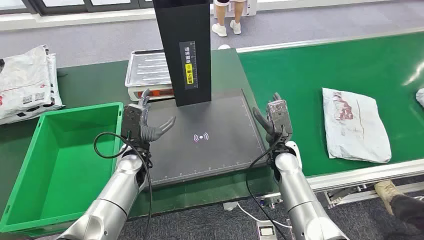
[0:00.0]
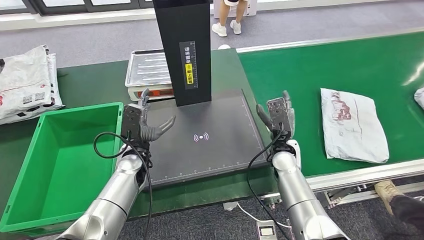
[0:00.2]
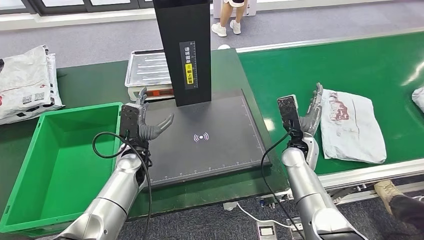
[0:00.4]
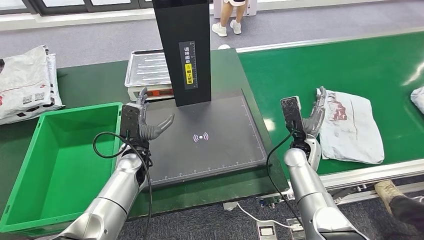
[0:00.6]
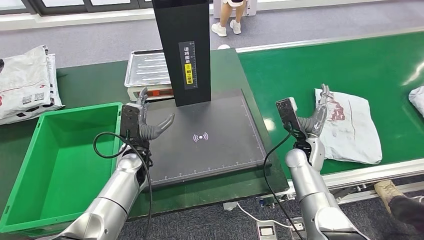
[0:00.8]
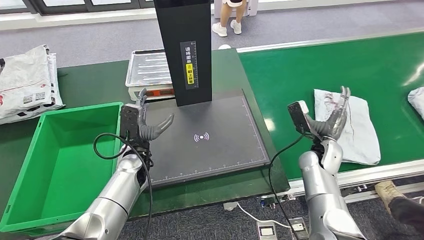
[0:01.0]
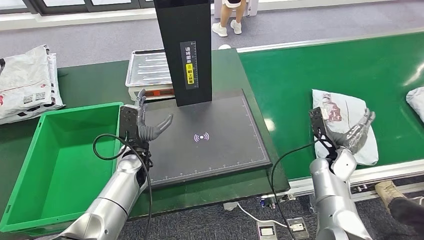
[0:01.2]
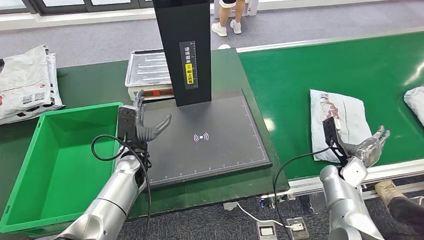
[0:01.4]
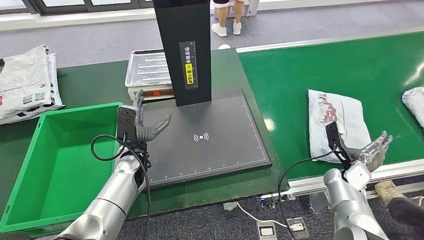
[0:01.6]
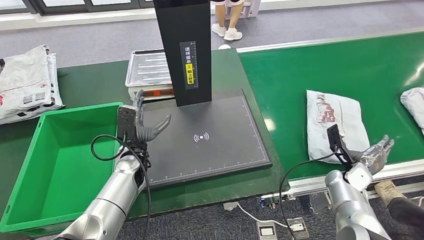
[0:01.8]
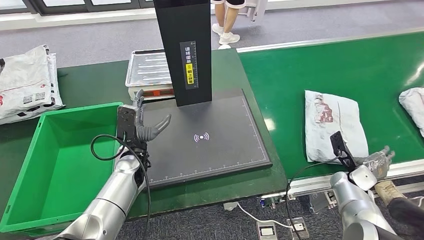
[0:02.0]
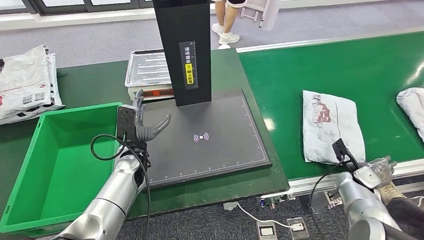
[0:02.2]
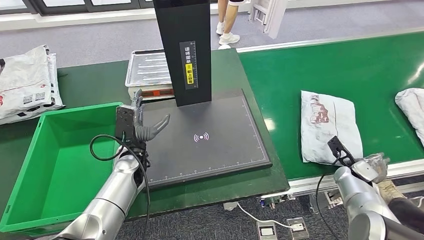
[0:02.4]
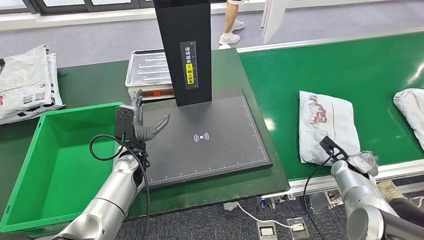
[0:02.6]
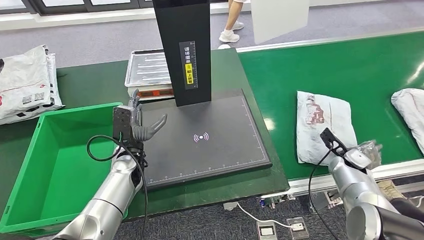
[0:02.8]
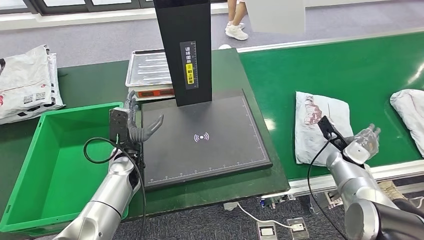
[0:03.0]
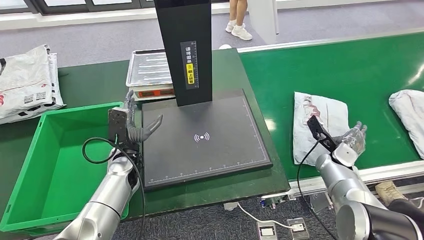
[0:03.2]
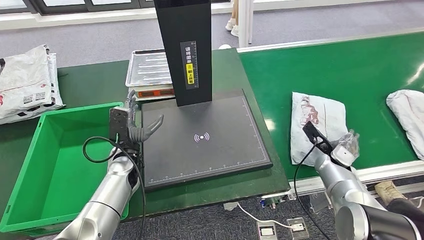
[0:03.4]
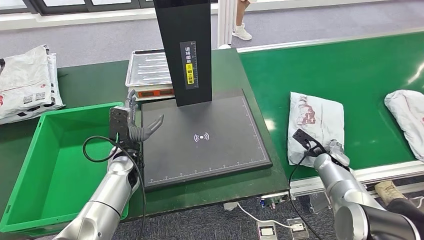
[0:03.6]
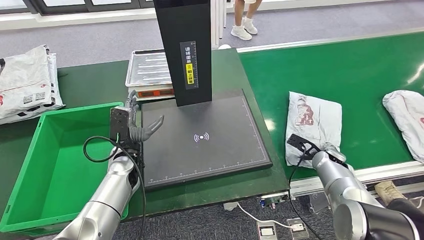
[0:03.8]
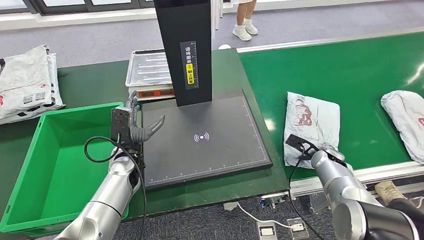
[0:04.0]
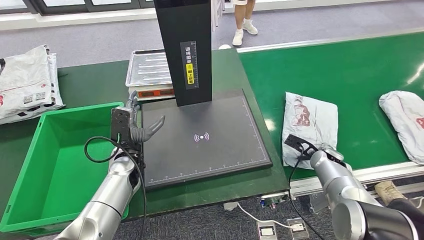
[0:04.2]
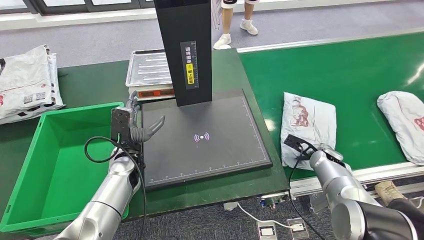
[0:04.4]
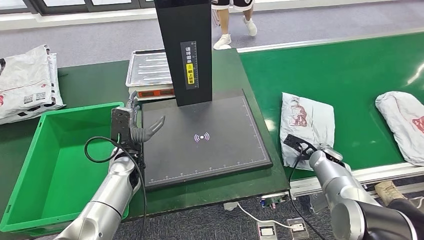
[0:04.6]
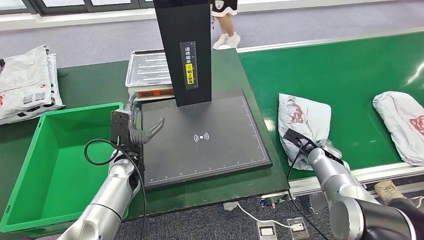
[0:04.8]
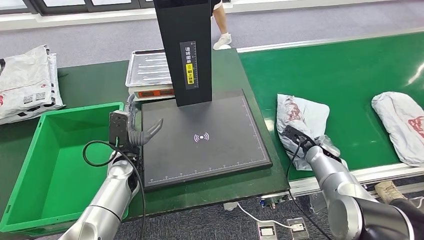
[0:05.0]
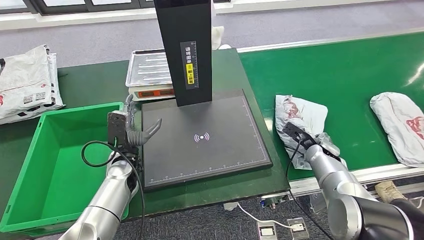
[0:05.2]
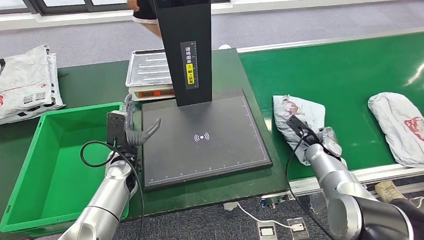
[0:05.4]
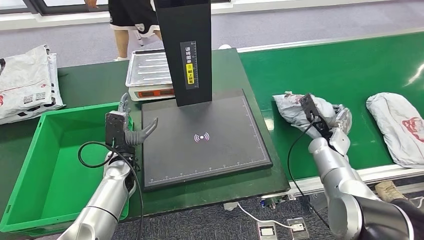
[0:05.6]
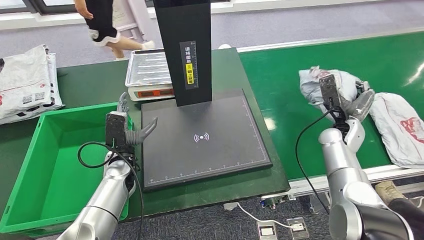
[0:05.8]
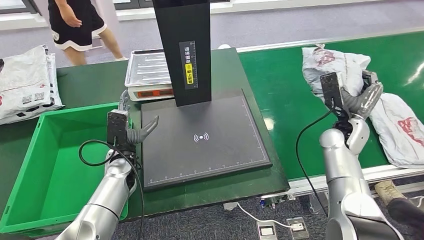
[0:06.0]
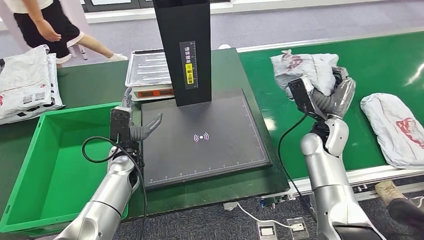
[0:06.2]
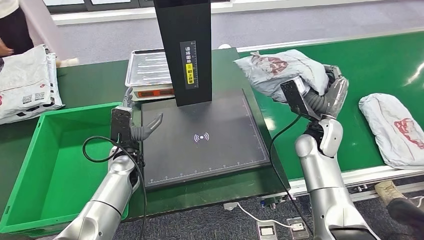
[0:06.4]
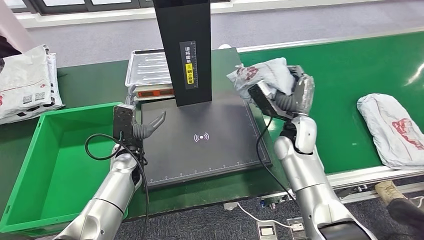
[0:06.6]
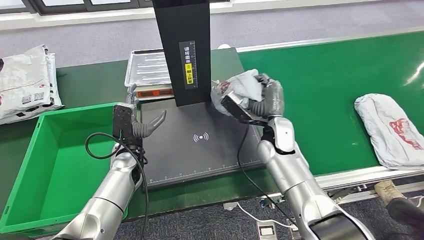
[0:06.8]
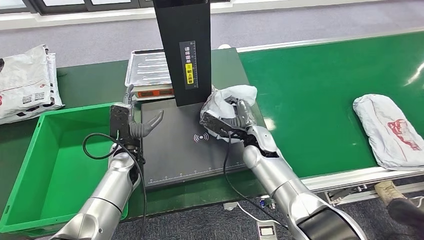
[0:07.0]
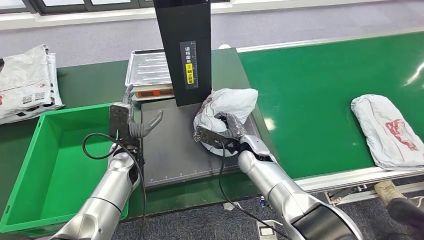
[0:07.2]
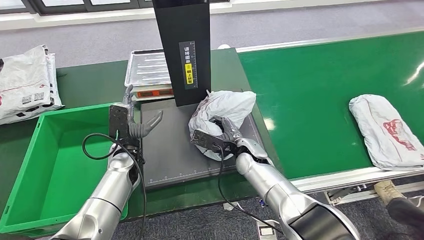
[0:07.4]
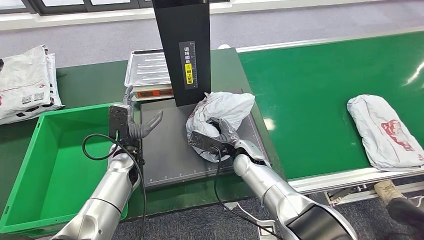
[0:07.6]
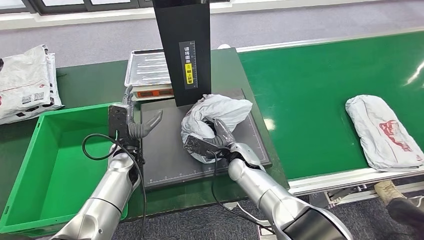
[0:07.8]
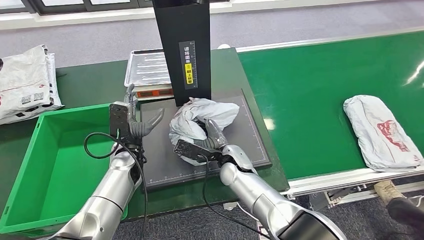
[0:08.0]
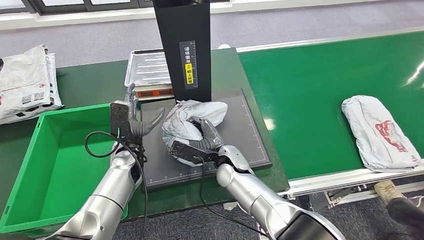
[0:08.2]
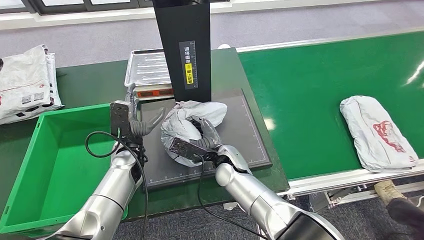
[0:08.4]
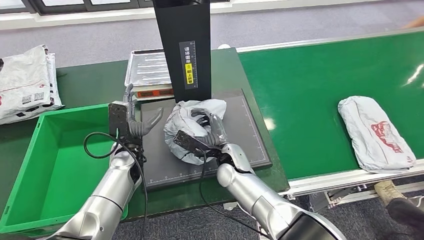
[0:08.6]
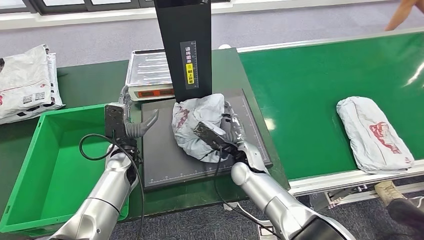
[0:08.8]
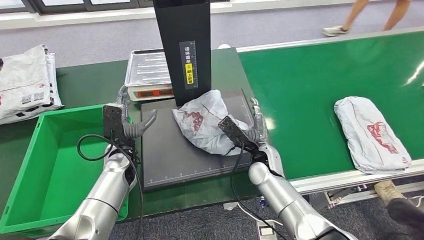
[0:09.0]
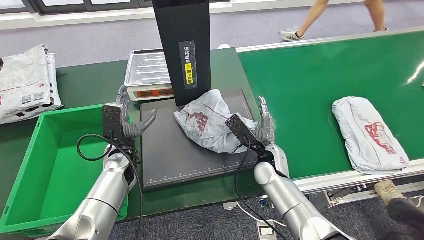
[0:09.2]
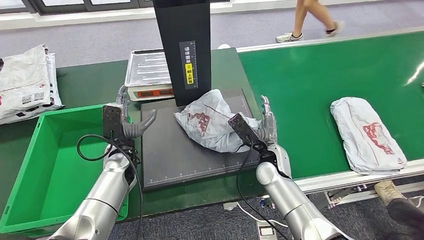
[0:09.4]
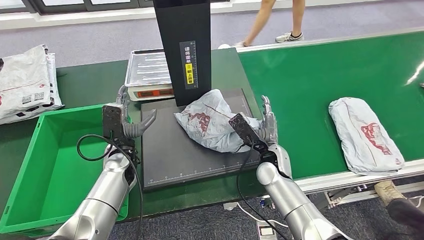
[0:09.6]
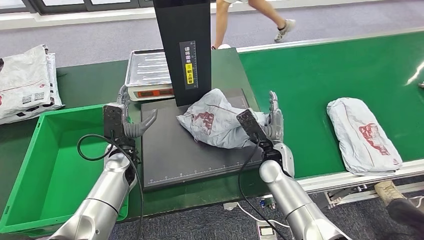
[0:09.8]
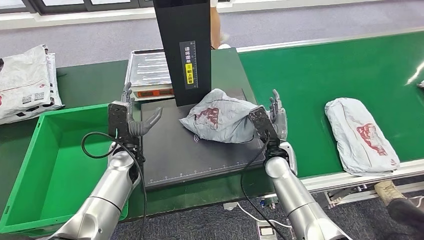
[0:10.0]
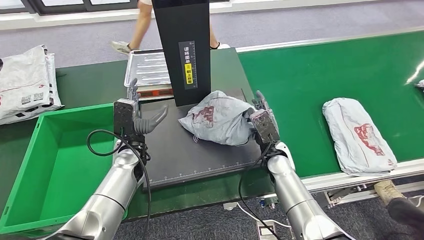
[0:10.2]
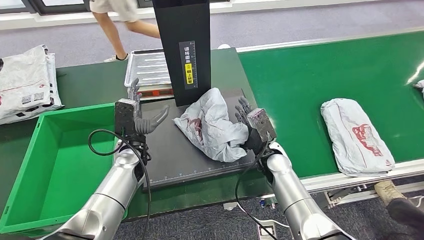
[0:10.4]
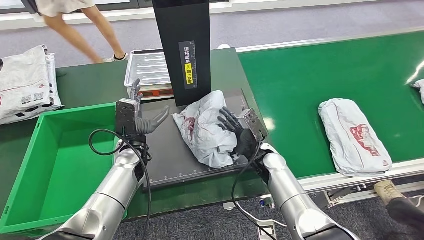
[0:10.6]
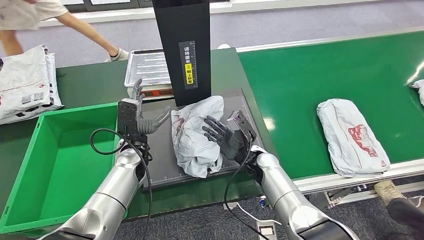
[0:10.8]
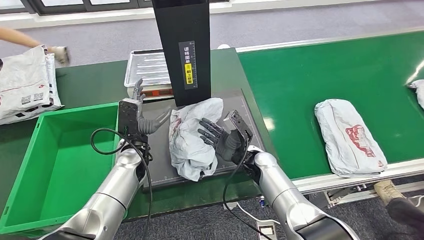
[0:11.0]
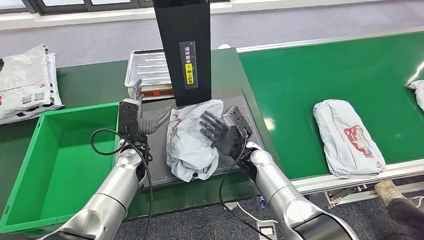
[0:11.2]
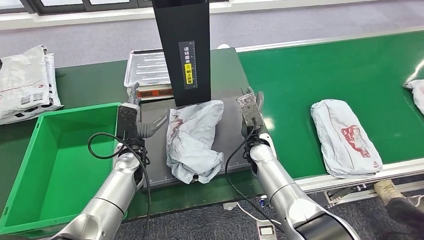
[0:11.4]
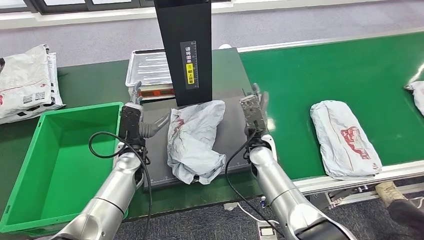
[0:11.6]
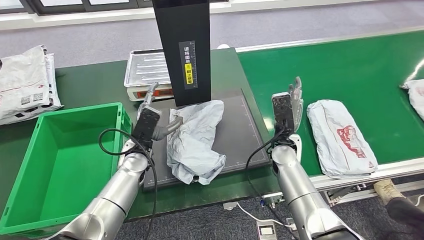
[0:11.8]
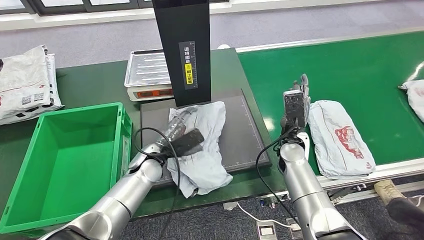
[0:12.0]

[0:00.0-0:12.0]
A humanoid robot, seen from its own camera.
Step, 0:00.0 to 0:05.6: Take the parcel off the conveyor belt.
Step, 0:06.0 to 0:08.4: Place the parcel onto the inbound machine.
0:03.0 to 0:04.4: The right hand moves about 5 cm.

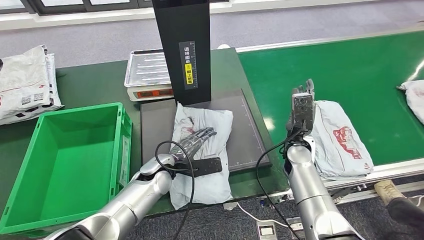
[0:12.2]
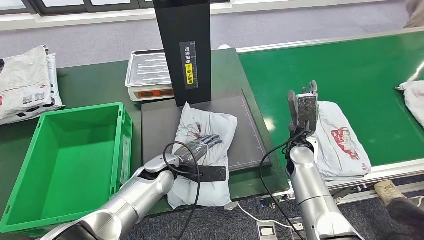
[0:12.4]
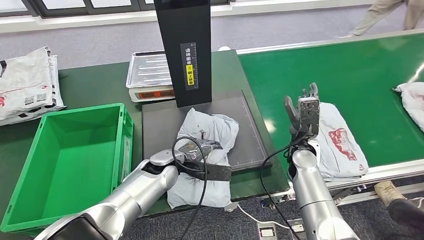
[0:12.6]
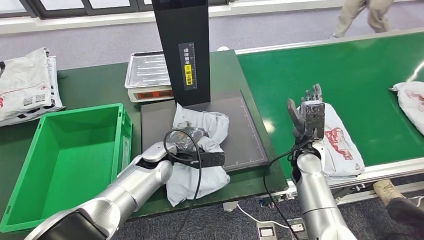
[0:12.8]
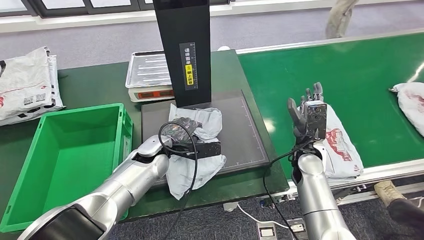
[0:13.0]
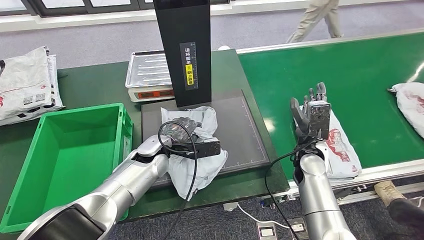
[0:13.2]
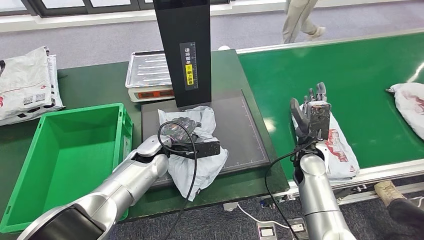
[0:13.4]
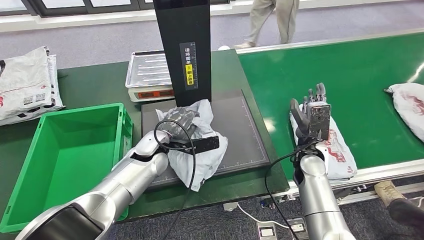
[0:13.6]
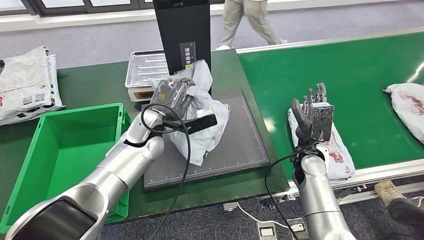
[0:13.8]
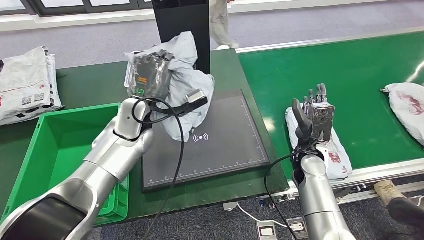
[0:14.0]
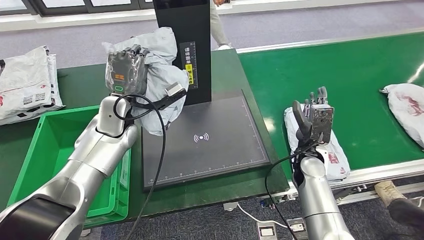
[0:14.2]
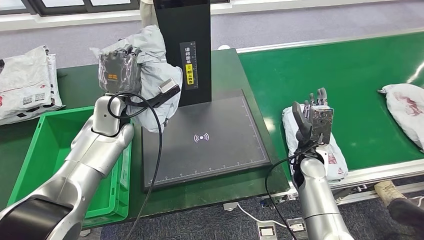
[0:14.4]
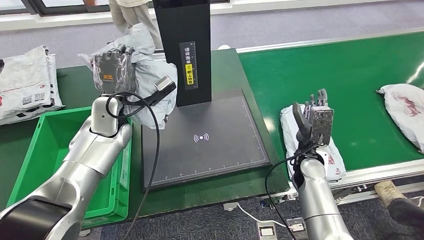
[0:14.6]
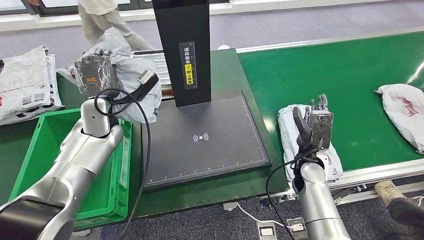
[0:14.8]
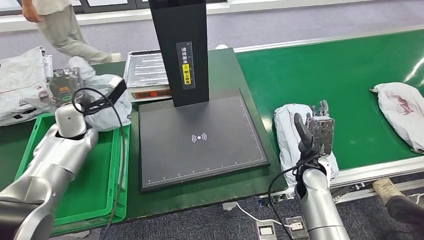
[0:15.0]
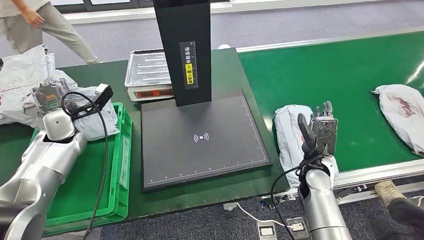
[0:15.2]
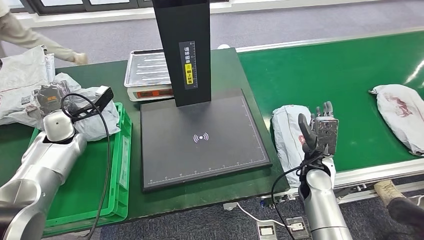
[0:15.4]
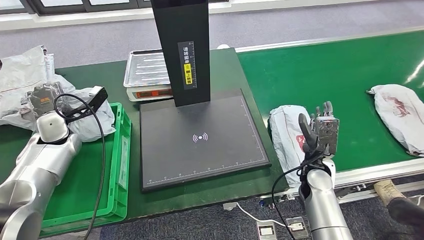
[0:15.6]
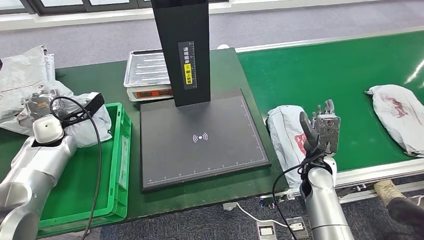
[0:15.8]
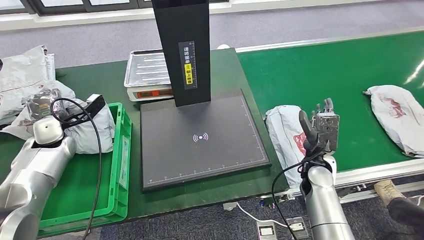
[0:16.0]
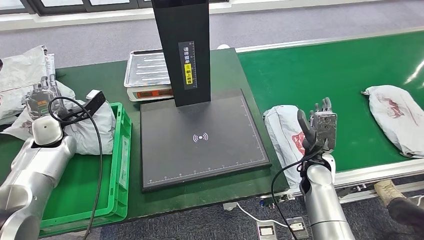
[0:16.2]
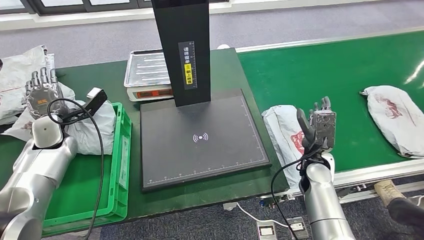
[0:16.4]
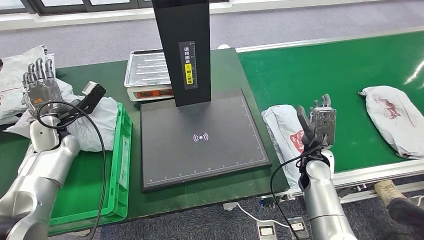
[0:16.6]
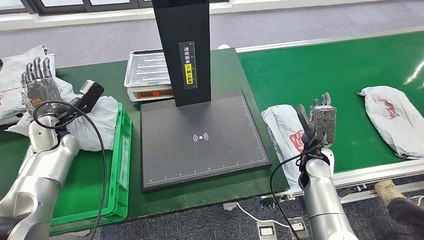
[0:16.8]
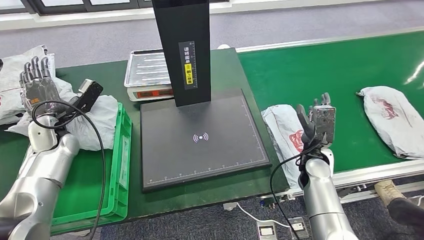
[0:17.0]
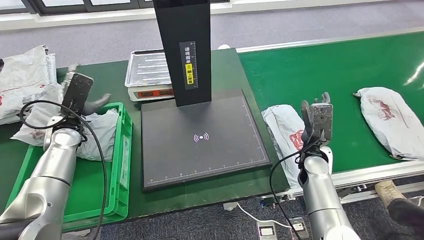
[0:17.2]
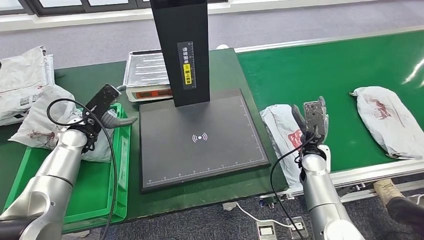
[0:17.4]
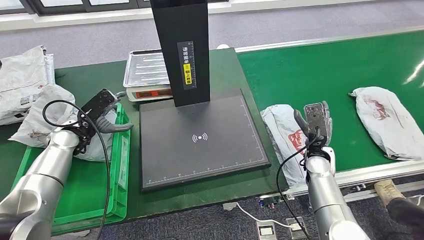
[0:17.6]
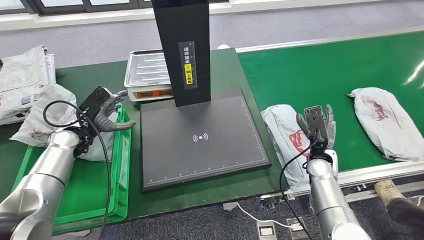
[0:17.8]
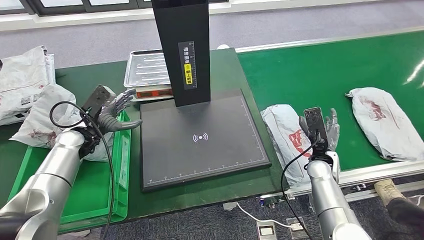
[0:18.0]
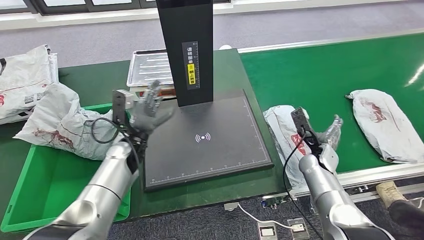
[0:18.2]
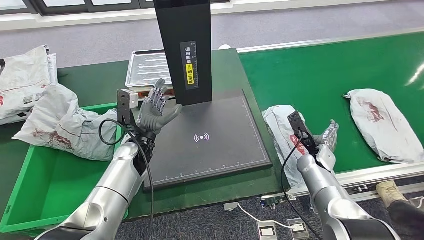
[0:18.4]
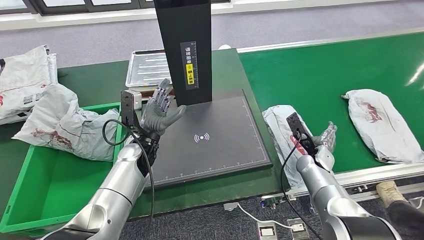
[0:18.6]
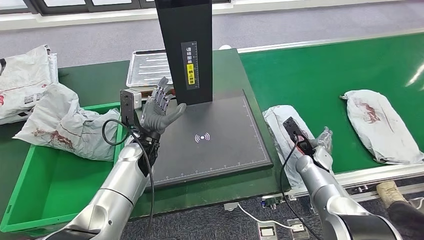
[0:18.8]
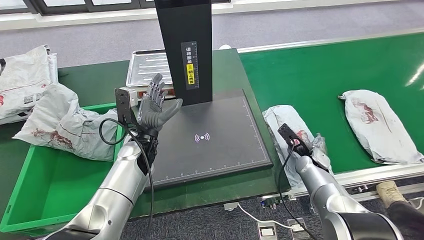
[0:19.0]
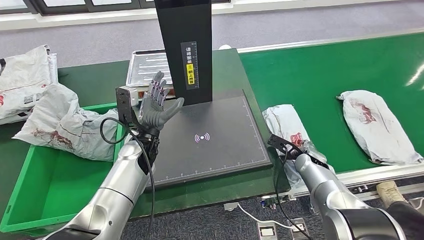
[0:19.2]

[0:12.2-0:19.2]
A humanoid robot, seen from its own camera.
Step, 0:12.2 to 0:14.8: Pick up the parcel from the inbound machine.
Step, 0:15.0 to 0:18.0: Put the parcel inside the courier box.
